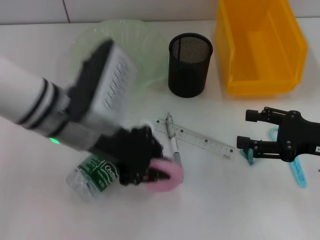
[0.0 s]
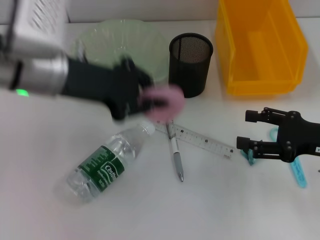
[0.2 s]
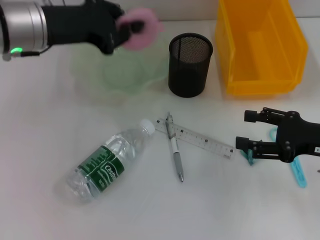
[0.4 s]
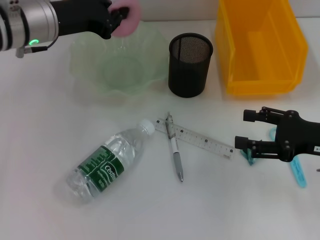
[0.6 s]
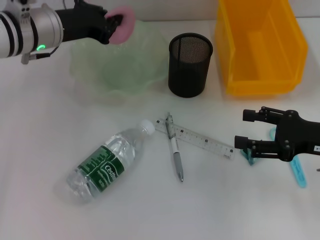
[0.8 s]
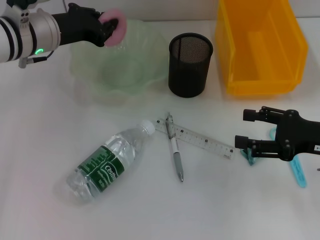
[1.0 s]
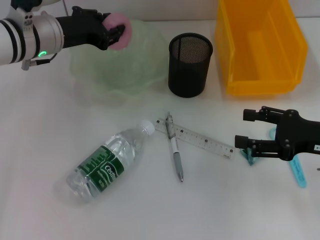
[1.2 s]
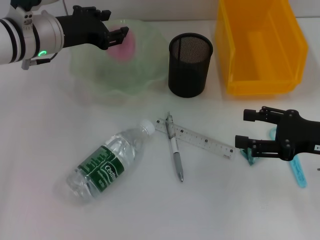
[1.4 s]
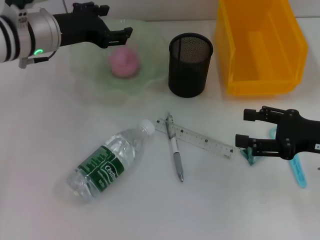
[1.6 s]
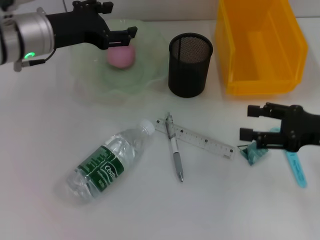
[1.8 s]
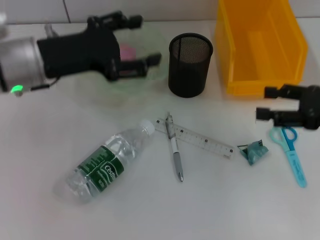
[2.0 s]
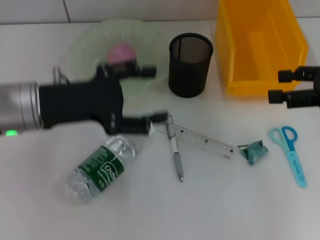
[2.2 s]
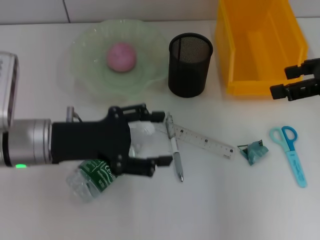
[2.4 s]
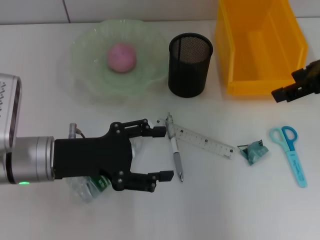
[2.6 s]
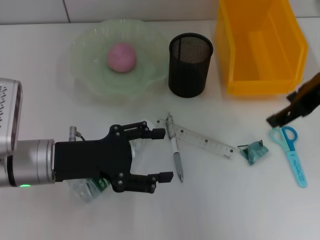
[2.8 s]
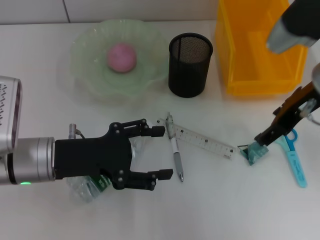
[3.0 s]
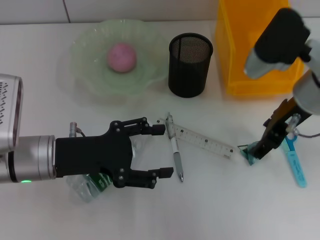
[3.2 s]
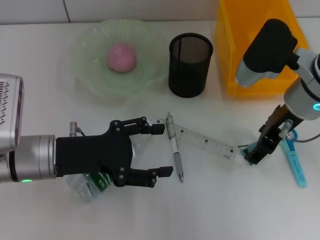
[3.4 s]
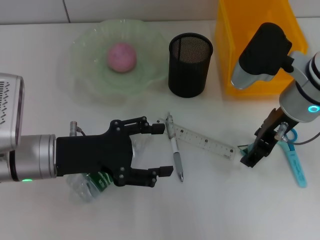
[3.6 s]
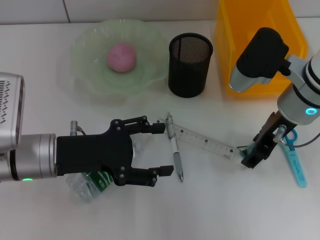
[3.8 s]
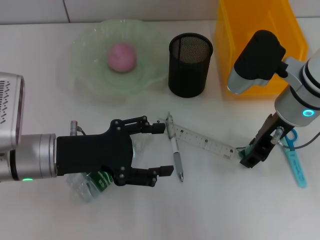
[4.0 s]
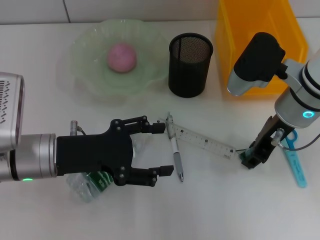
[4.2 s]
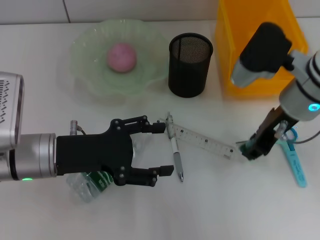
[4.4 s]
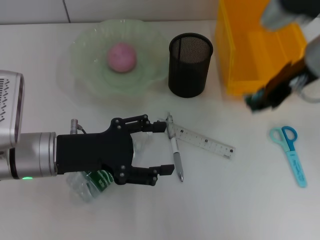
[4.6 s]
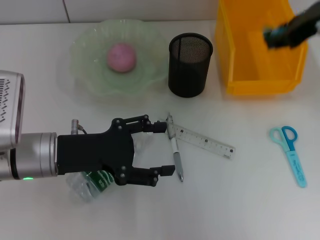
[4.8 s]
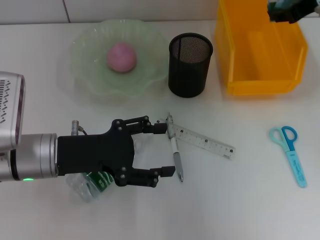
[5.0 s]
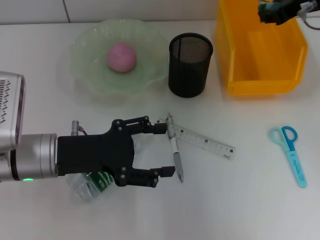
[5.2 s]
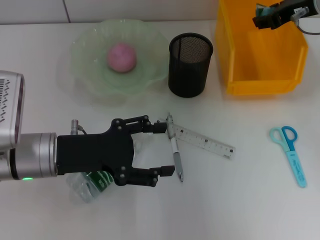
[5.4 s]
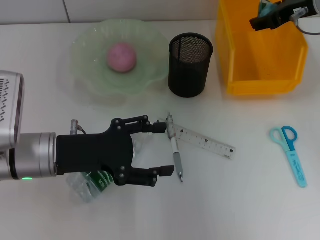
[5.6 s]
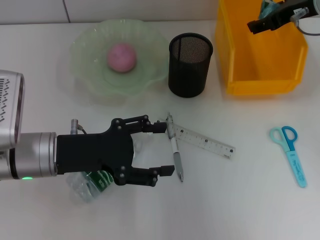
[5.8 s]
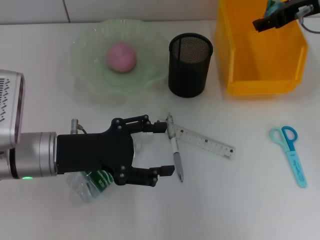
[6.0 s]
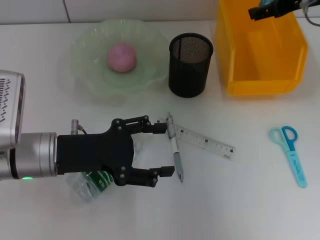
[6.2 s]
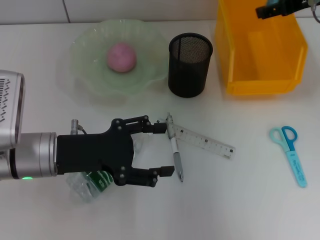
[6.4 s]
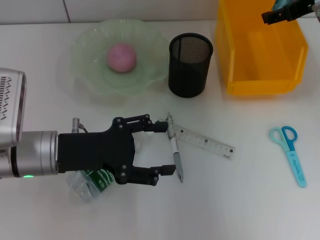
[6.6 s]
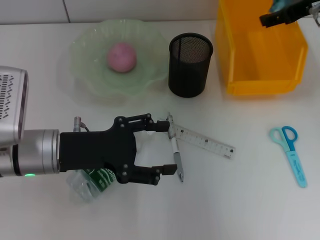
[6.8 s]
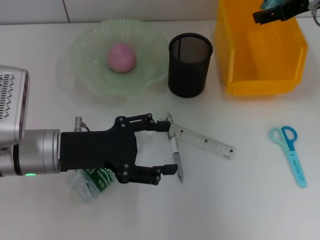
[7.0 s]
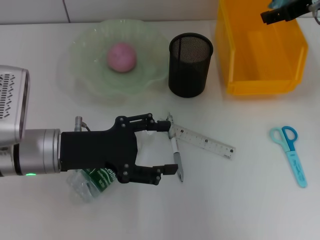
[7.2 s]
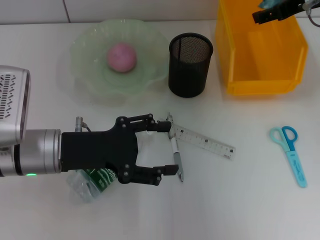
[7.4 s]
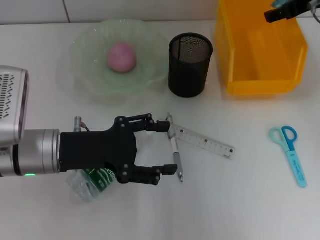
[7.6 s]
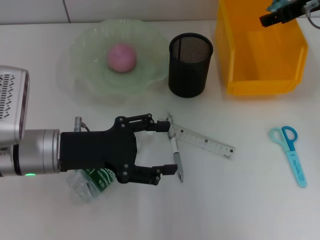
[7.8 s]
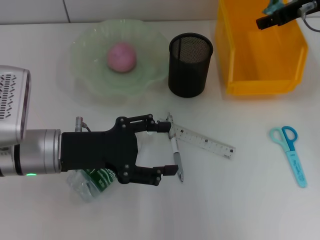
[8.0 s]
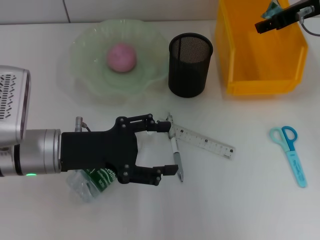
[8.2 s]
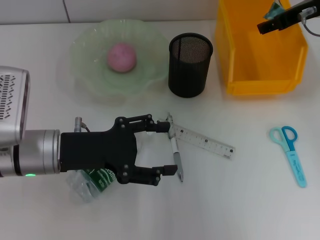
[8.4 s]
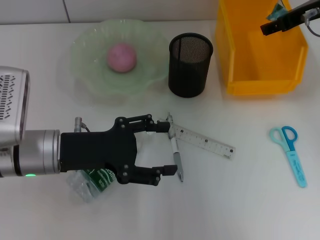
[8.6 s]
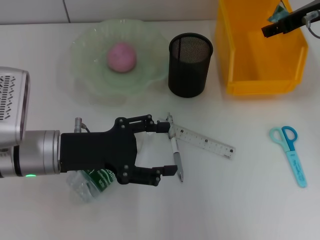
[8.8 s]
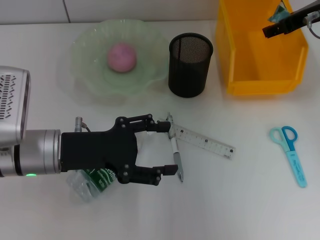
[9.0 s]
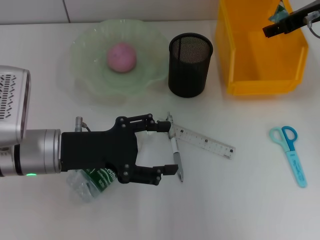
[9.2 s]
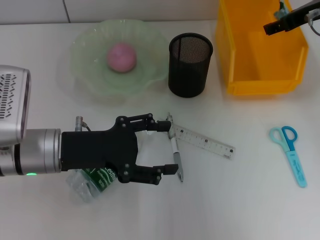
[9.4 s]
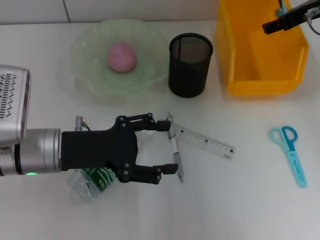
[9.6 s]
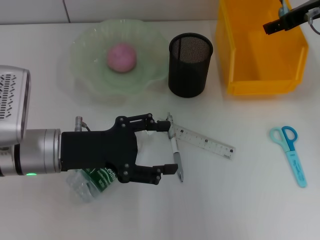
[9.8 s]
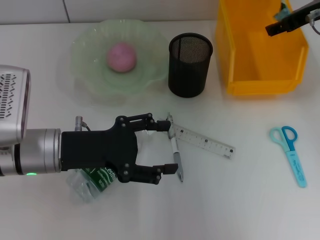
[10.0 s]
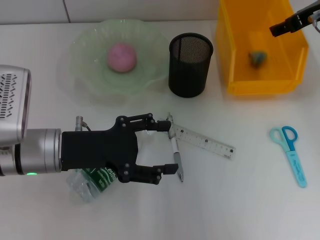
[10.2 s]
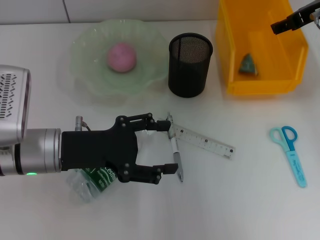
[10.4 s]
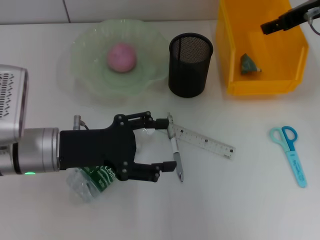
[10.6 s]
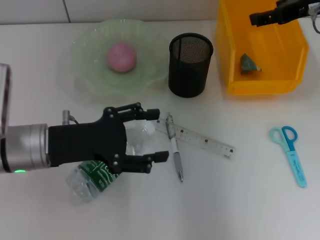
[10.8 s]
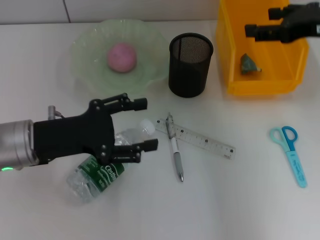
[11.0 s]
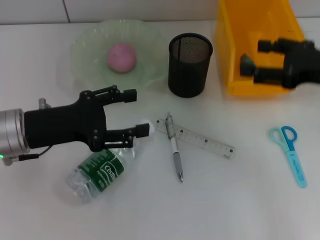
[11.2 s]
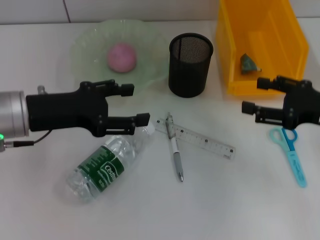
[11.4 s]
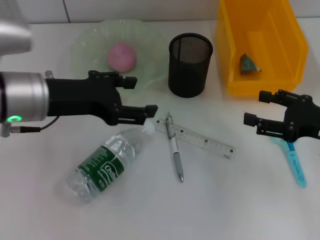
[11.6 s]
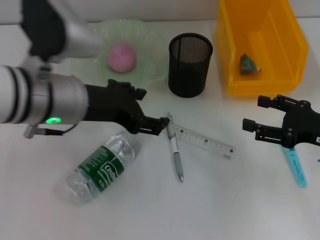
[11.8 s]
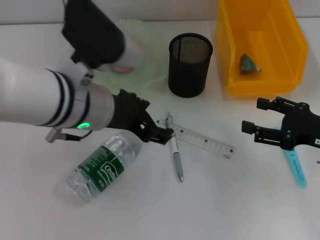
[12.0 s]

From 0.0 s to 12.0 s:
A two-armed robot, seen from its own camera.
Step, from 0.0 s to 1.6 s: Place the peach into the fruit bowl with the left hand.
Step, from 1.8 s to 4.2 s: Grab the plastic with the right hand.
Step, from 4.4 s to 10.4 s: Place the plastic into the trash can with the right hand.
From 0.0 s to 1.6 s: The left gripper moves forward and to the left, roughly 15 cm, and opens up.
From 1.6 s to 3.0 s: The left gripper is displaced backward and downward by about 15 cm. The right gripper travels upward, to the left and forward by approximately 15 cm.
From 3.0 s to 4.4 s: The right gripper closes up.
From 4.4 s to 6.0 s: The right gripper heads forward, upward and to the right, covering about 10 cm, and opens.
From 6.0 s to 9.0 s: The grippers move only a little.
From 9.0 s to 10.4 s: Neither gripper changes place.
From 10.4 s to 12.0 s: The left gripper is displaced to the right and upward by about 10 cm; the right gripper is displaced backward and downward by approximately 20 cm.

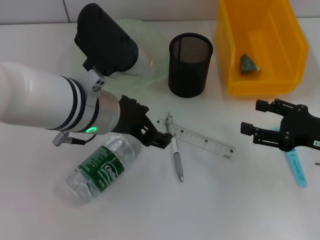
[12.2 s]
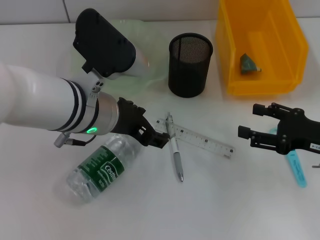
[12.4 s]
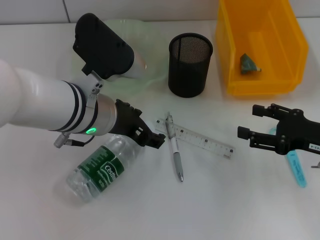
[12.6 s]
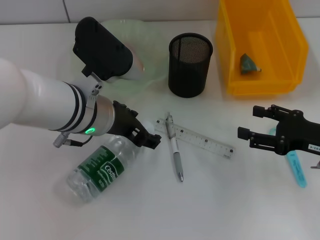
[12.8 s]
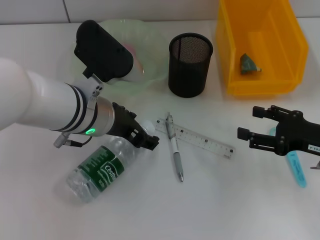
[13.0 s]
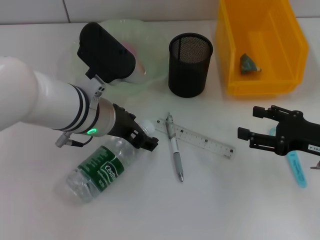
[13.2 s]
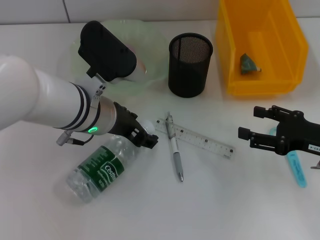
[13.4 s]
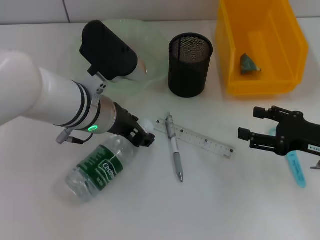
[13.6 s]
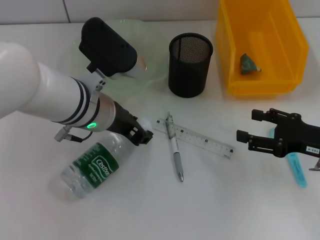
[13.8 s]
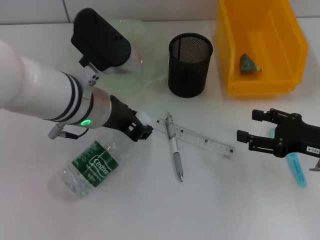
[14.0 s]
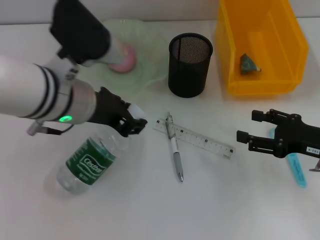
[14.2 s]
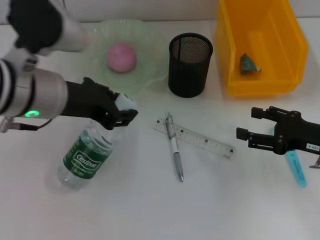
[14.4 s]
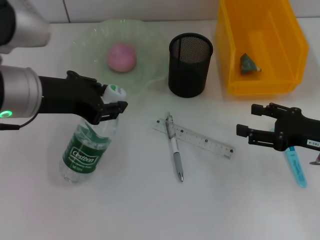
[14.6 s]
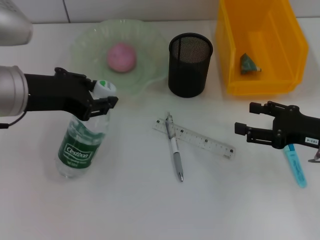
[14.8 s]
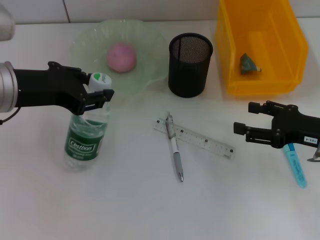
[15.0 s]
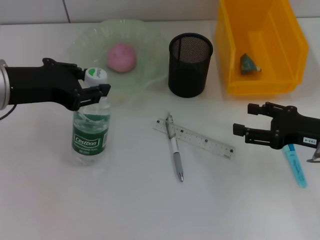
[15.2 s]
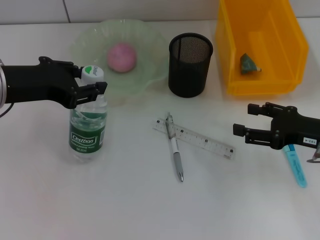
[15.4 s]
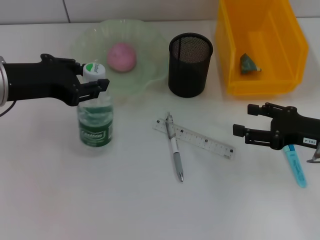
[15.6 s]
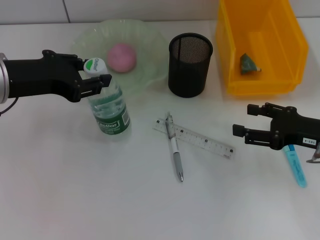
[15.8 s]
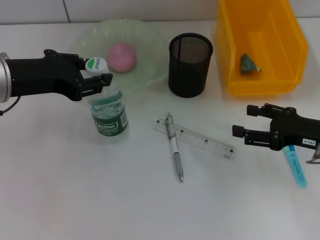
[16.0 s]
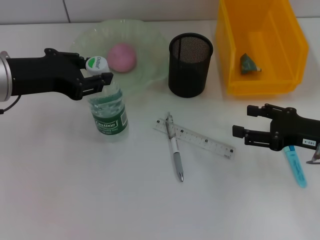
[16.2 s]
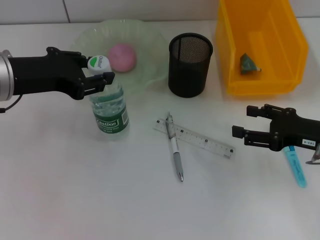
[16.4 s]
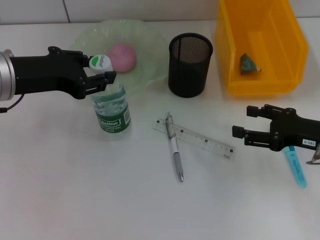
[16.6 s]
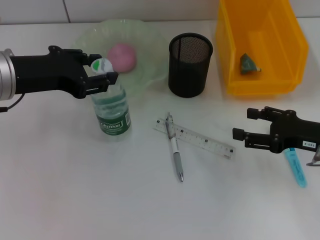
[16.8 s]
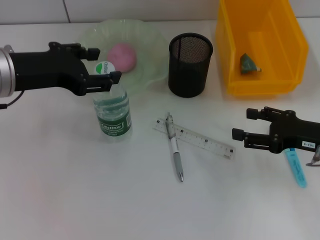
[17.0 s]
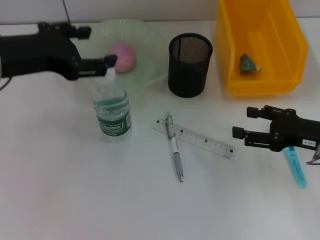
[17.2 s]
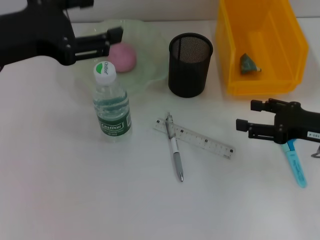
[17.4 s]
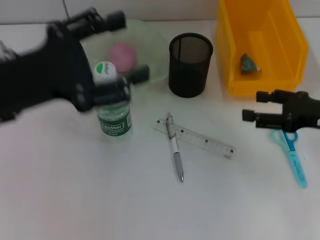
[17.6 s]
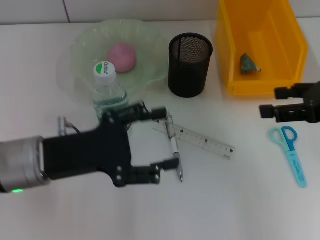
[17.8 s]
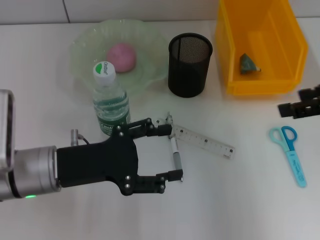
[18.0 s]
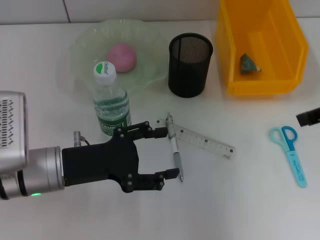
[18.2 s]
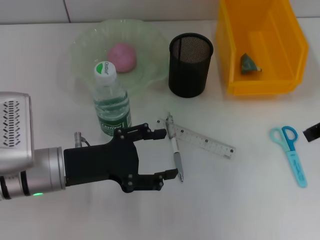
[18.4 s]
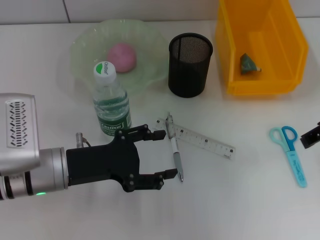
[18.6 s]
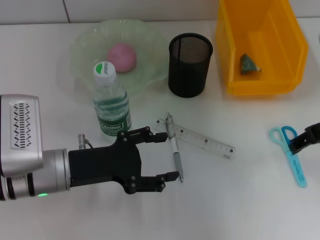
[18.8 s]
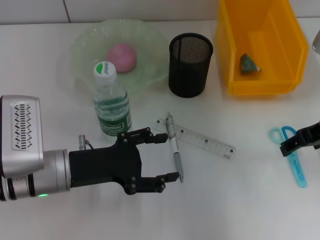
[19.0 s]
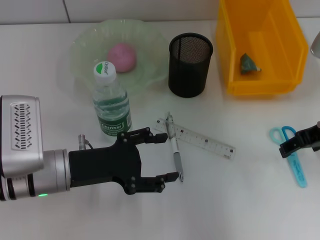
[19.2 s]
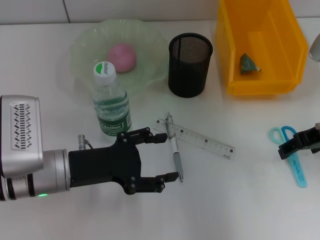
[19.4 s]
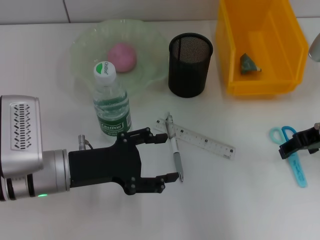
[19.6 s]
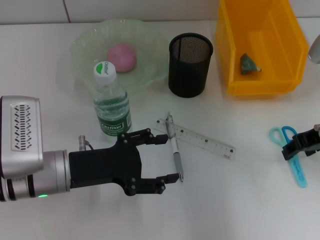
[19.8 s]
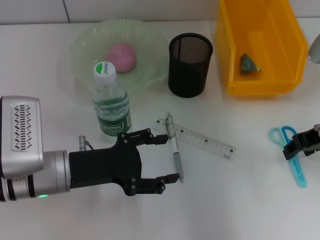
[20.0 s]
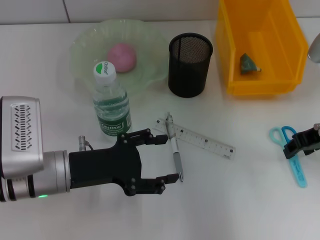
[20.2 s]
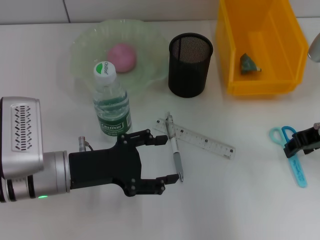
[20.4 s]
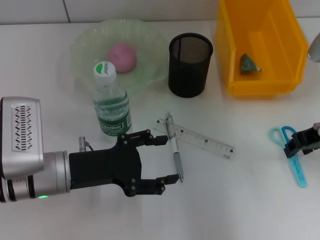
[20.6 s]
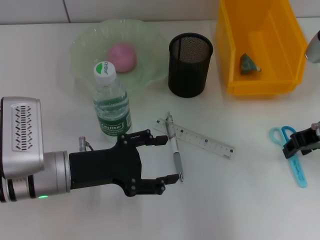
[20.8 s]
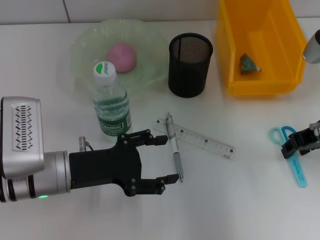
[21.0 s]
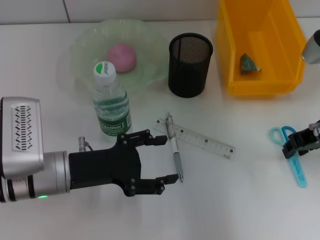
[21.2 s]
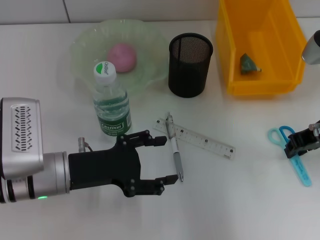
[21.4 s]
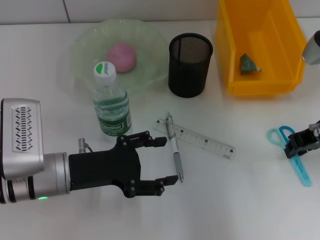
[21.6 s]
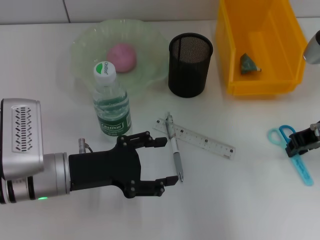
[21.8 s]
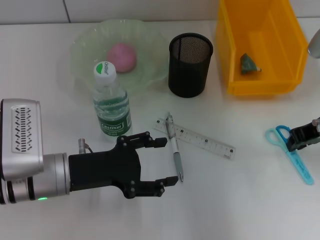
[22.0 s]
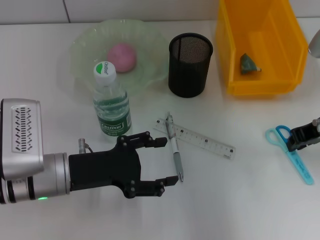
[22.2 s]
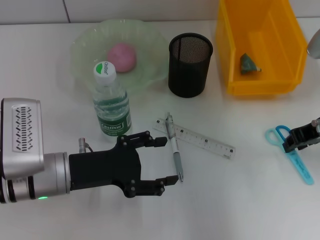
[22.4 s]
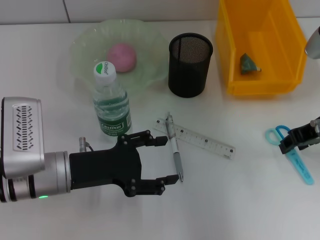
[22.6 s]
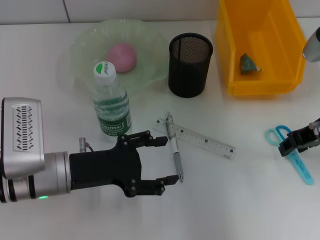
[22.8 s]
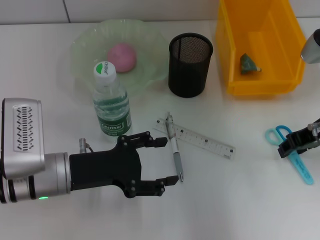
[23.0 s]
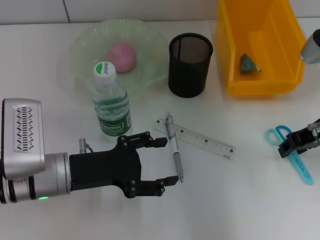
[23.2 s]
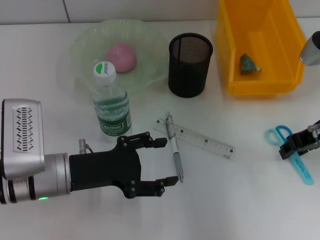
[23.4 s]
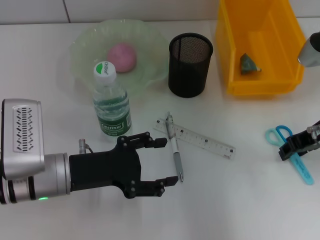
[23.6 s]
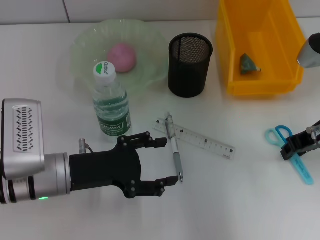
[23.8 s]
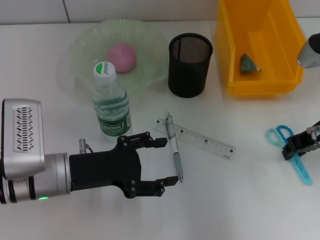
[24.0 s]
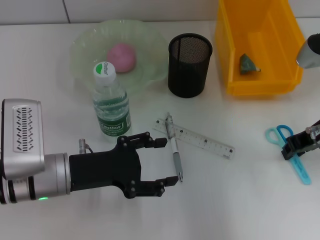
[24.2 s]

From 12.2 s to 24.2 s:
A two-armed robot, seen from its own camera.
Step, from 13.6 s to 17.0 s: Place the water bottle on the table with the left hand.
From 12.2 s to 13.8 s: The left gripper changes place by some 5 cm, and closes.
From 13.8 s to 15.2 s: The left gripper shifts roughly 15 cm to the left and upward.
From 15.2 s to 16.6 s: Neither gripper changes place.
From 16.6 s to 18.2 s: The right gripper goes about 20 cm upward; the left gripper travels downward and backward by roughly 15 cm, and opens up.
From 18.2 s to 19.8 s: The right gripper goes some 10 cm downward.
From 19.8 s to 21.2 s: The right gripper closes up.
From 21.2 s to 22.6 s: Both grippers stay about where they are.
From 22.6 s to 24.2 s: There are only small adjustments of the grippers.
